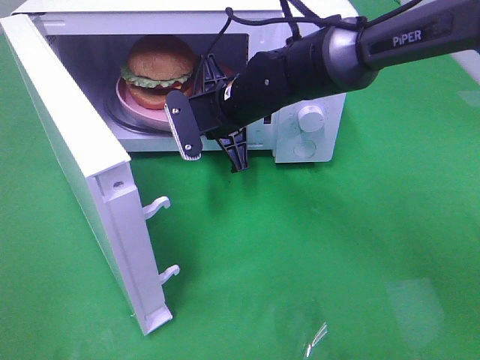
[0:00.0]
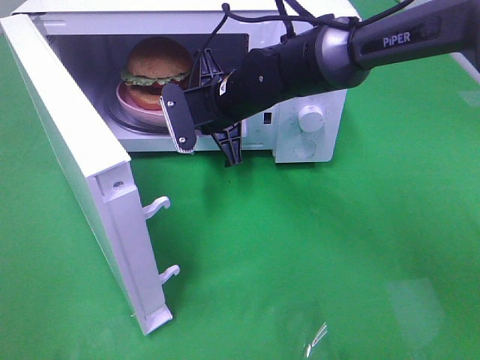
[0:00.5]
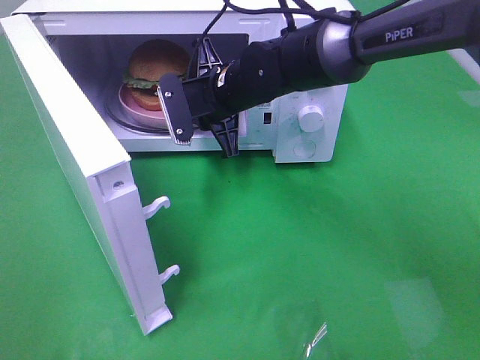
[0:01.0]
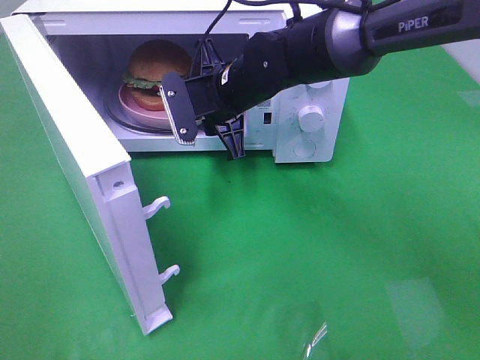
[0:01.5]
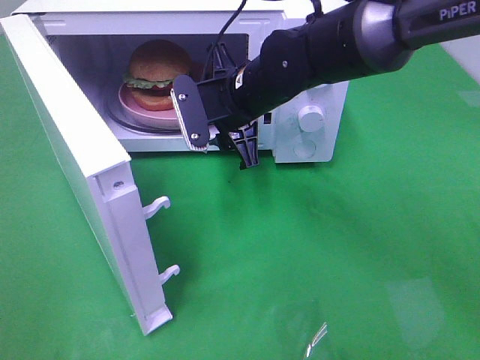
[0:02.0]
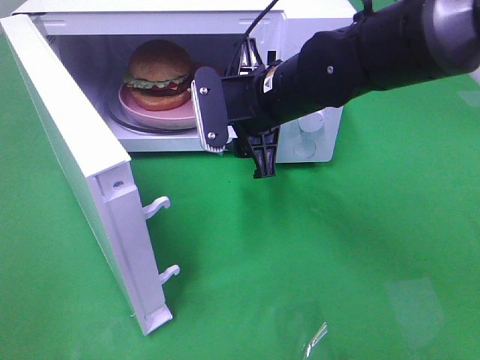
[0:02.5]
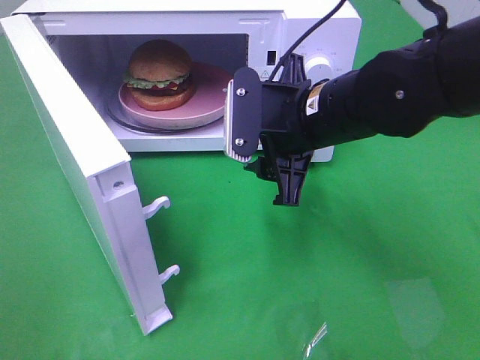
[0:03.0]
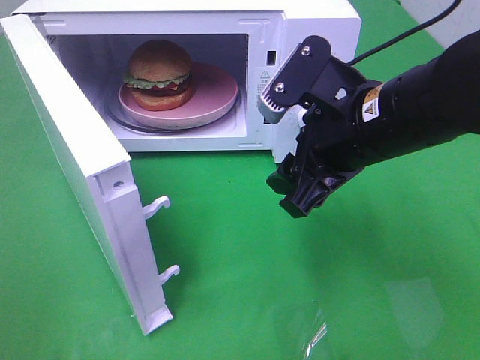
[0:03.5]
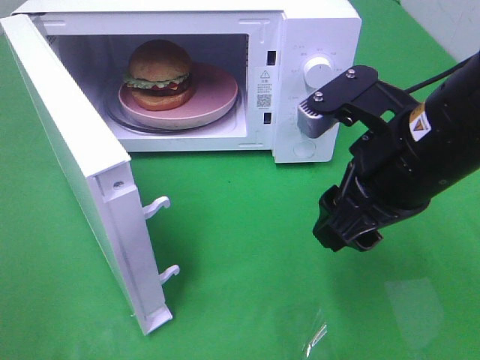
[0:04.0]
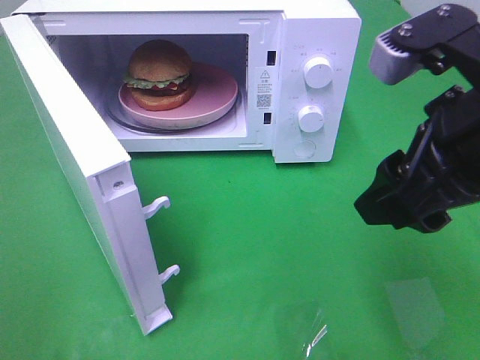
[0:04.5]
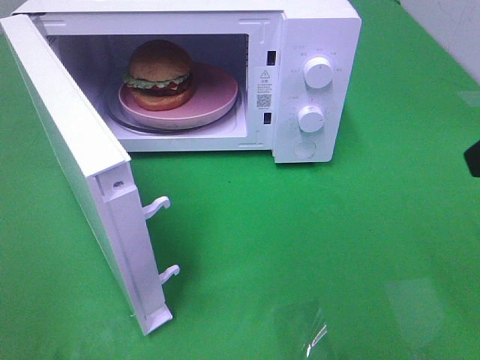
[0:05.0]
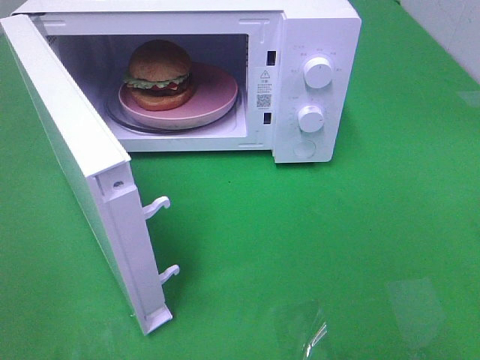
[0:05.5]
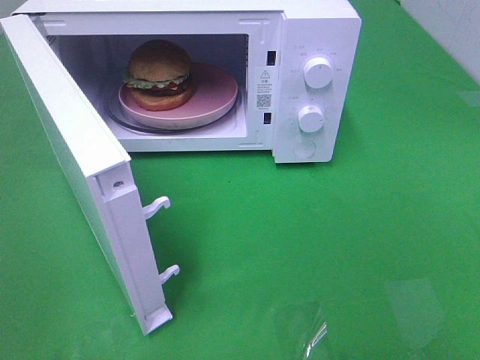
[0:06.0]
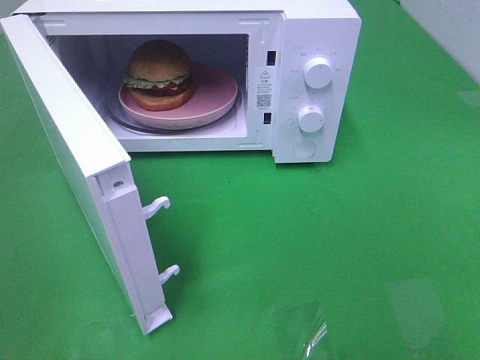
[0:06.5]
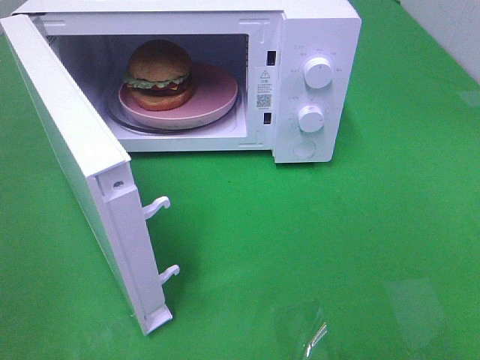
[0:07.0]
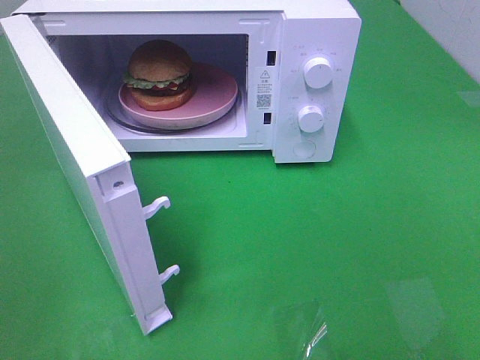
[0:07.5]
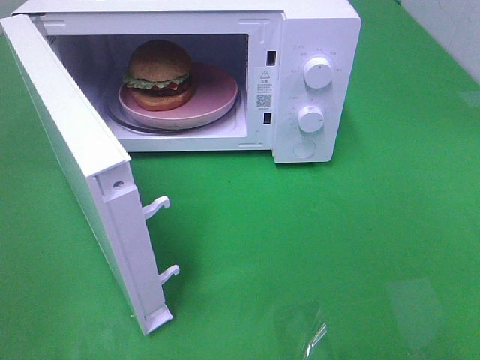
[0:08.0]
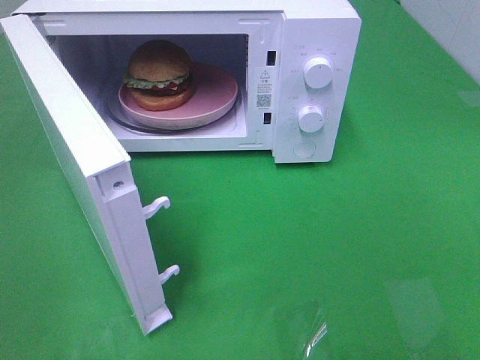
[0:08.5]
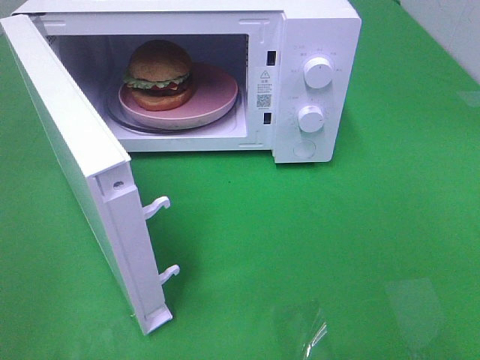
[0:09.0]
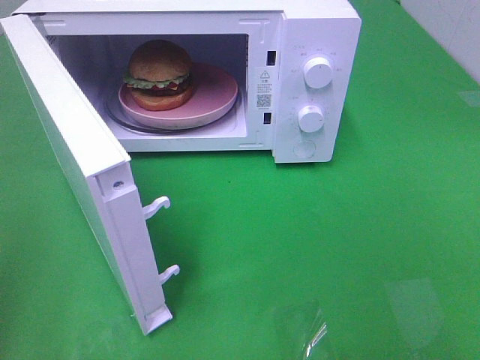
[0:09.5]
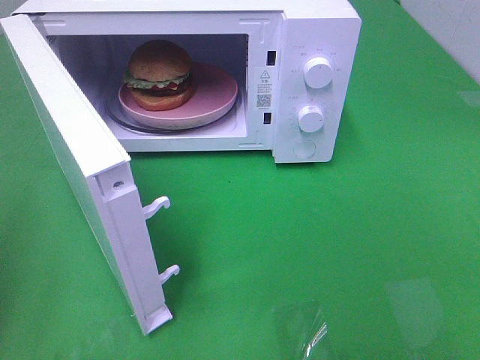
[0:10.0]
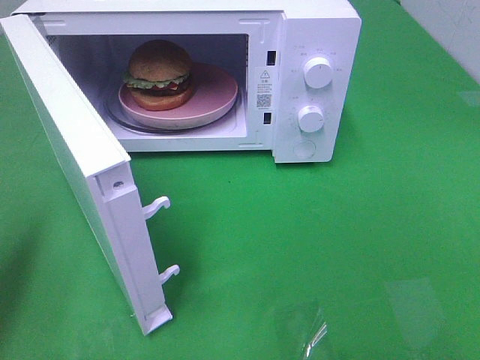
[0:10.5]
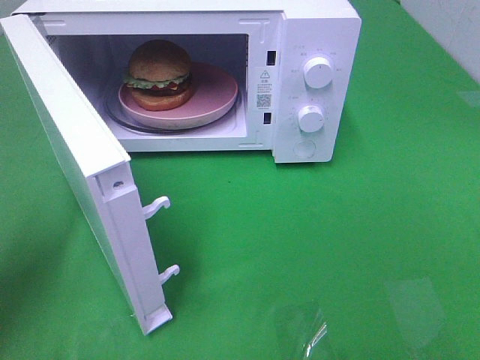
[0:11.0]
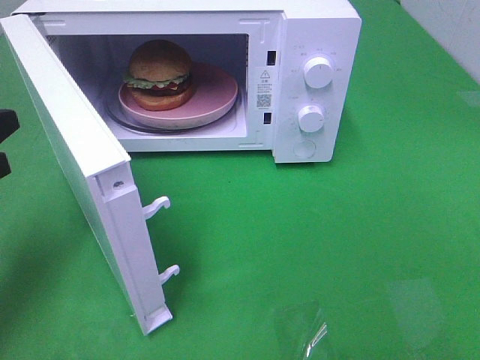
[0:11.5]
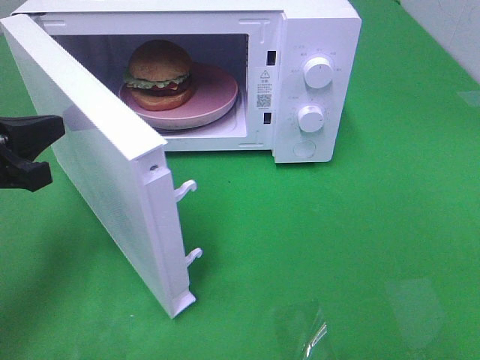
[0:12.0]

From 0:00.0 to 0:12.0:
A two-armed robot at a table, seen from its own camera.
Task of the whole recording: Heat the burger.
From 0:00.0 to 0:02.0: The right gripper opens.
From 0:02.0 to 0:04.0: The right gripper heads backward and to the right, covering about 20 cm.
From 0:04.0 to 0:06.0: The right gripper moves backward and to the right, roughly 25 cm.
From 0:10.0 to 0:12.0: The left gripper moves forward, to the right and downward, some 15 cm.

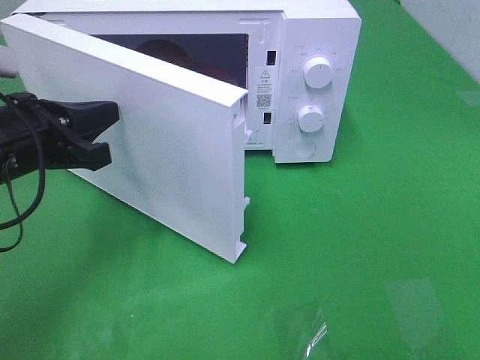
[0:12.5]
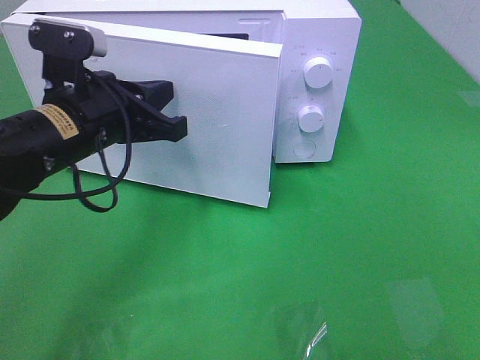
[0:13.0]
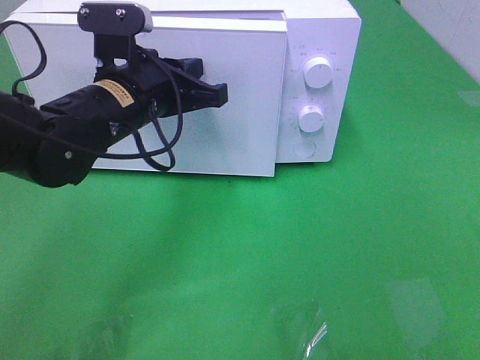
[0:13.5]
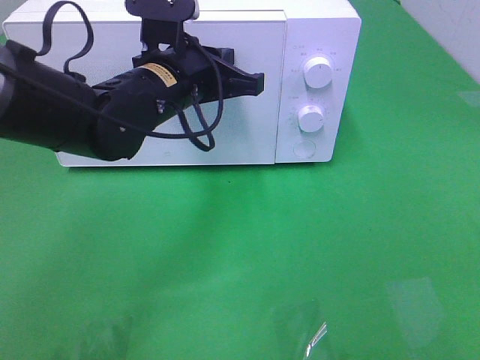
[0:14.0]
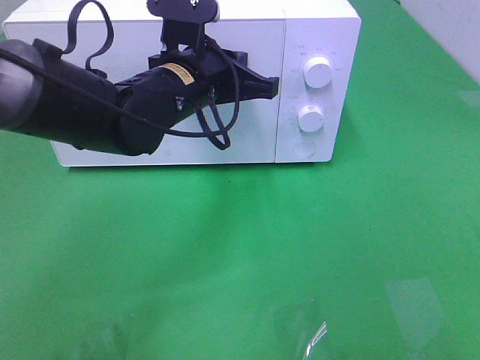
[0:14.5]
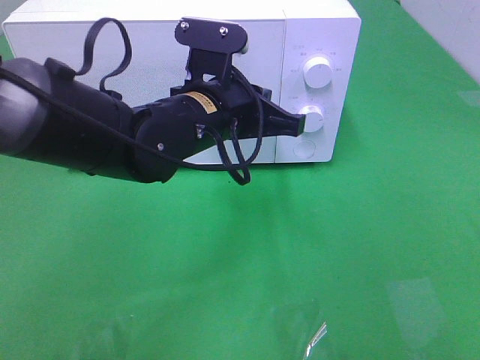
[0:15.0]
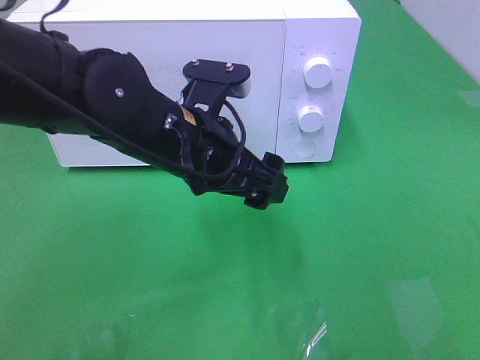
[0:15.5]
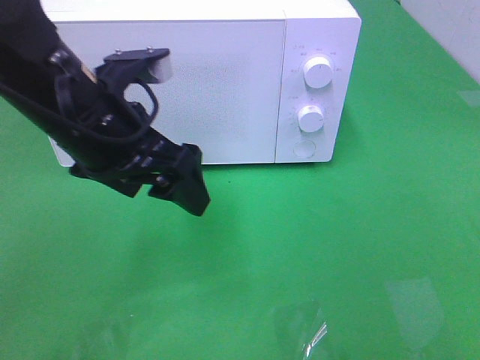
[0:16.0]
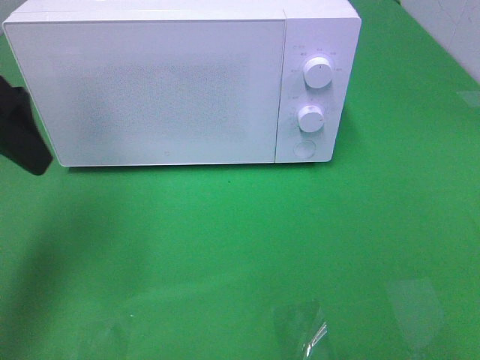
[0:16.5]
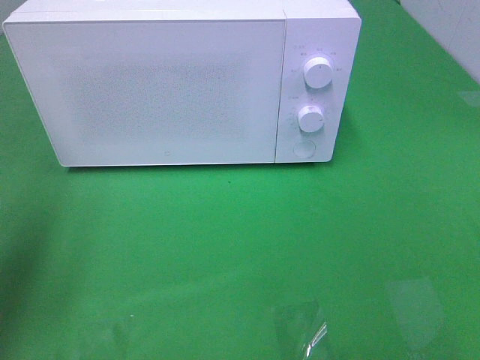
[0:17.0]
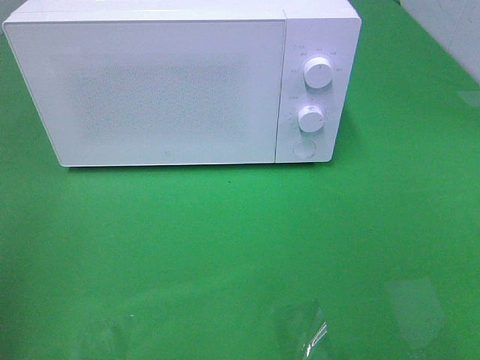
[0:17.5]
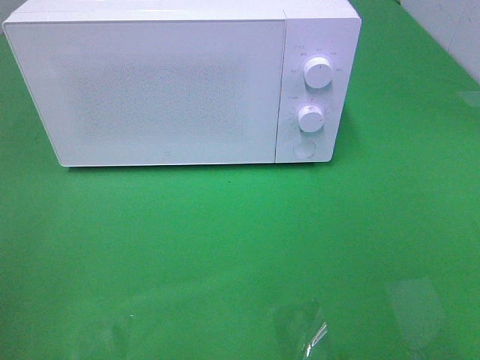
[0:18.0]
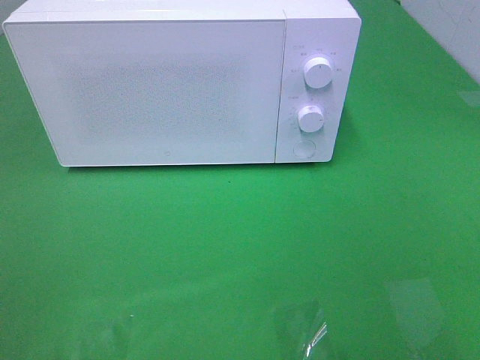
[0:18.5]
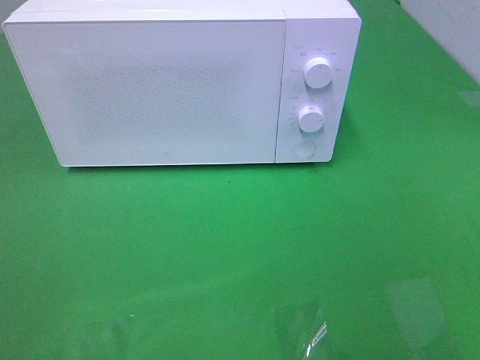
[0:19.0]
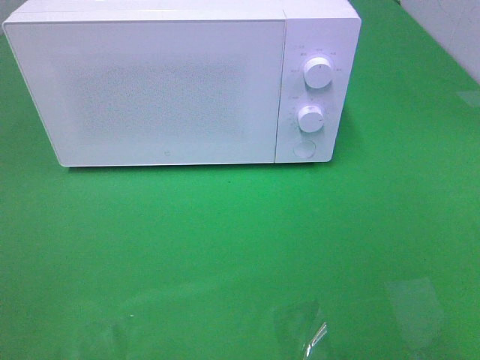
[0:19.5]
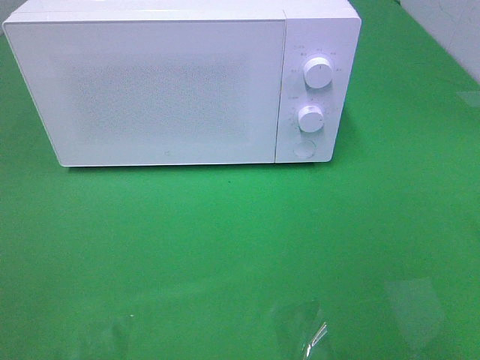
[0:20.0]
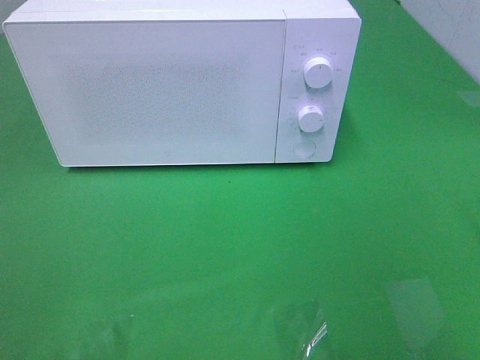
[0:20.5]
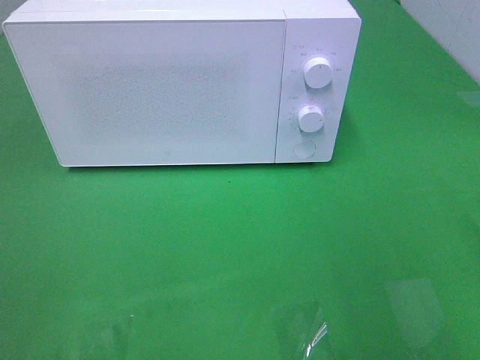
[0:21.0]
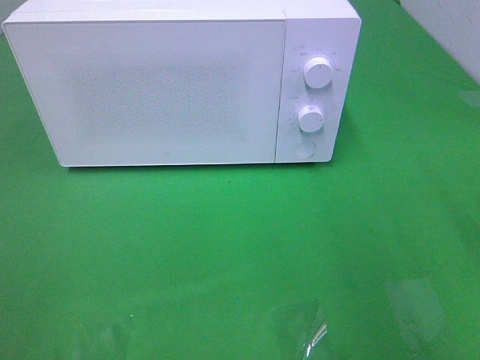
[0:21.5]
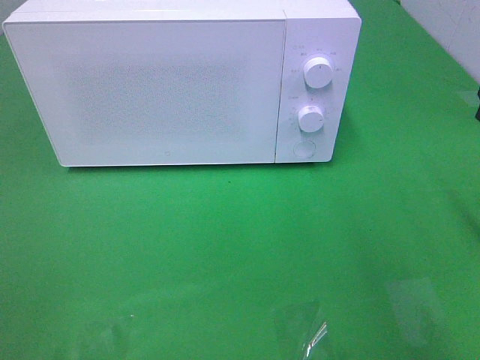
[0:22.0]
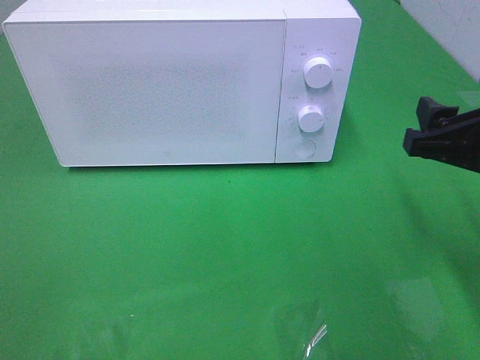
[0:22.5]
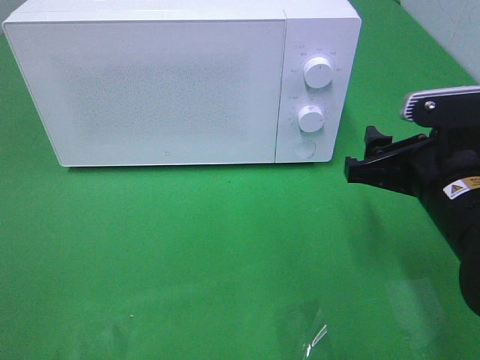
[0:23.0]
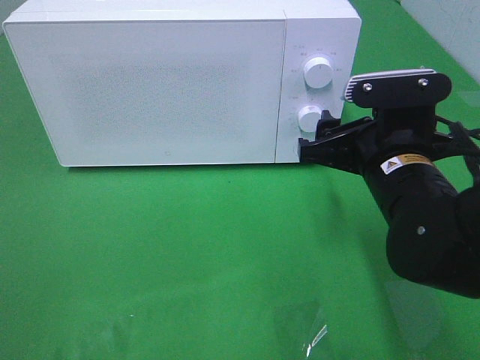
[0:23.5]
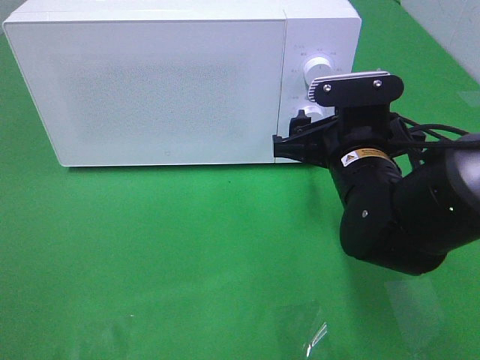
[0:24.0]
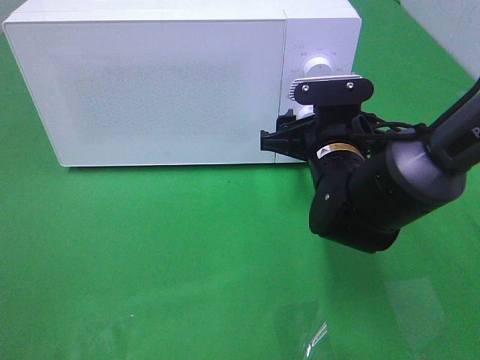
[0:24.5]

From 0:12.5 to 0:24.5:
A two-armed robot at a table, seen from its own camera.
Task of the whole recording: Heat the burger.
Step, from 0:12.5 to 0:15.0: Left hand: close the microwave door.
From 0:12.5 to 0:14.5: The left gripper heads to the right and forward, covering about 20 cm.
From 0:14.5 to 0:16.5: The left gripper shifts about 25 cm to the left, upward and backward, and opens.
From 0:16.5 to 0:18.5: The left gripper shifts roughly 25 cm backward.
From 0:20.5 to 0:22.5: The right gripper moves forward and downward, about 15 cm.
From 0:22.5 to 0:24.5: The right gripper moves to the left, forward and downward, about 20 cm.

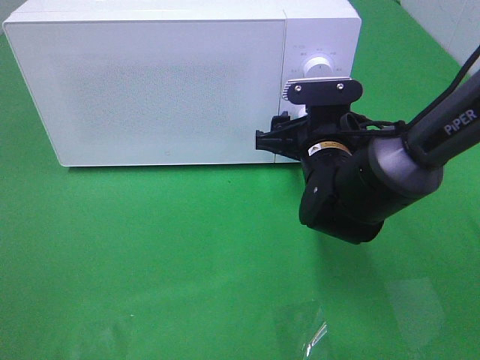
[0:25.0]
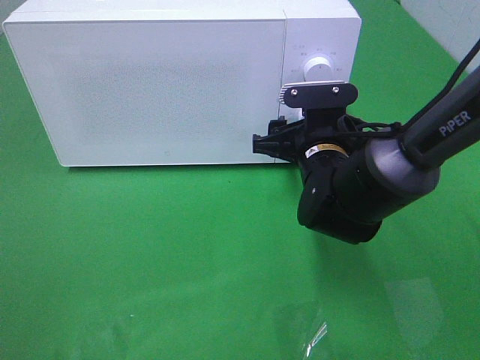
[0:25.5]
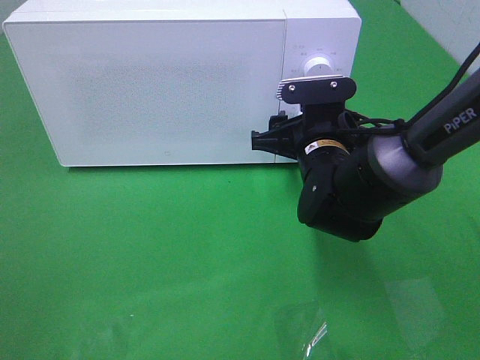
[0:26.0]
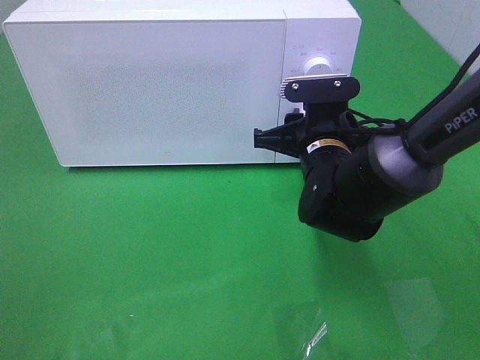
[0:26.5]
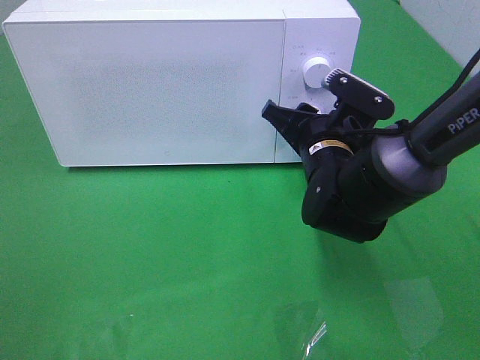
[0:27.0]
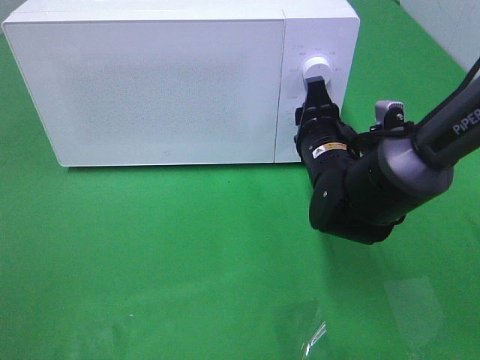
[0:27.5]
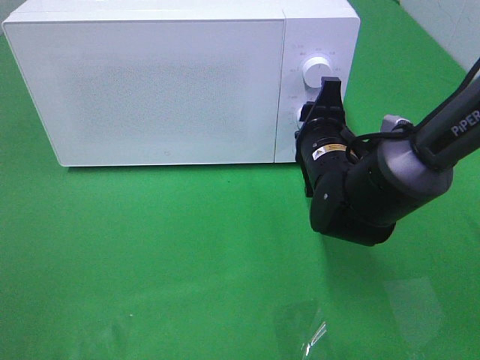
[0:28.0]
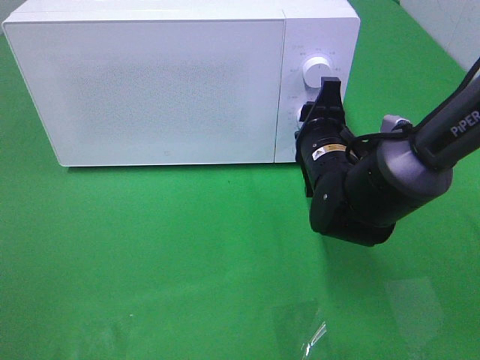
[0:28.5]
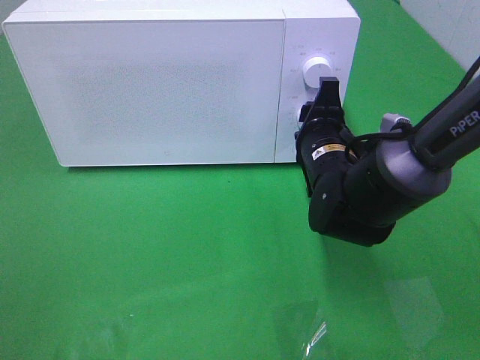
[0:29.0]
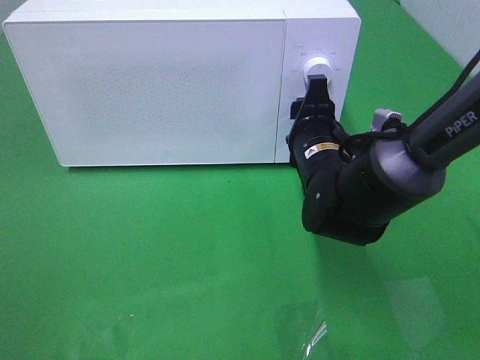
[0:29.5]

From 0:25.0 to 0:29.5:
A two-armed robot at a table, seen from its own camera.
Task of the whole recording: Heat the burger.
From 0:25.0 to 0:27.0: The right gripper closes its fingers.
